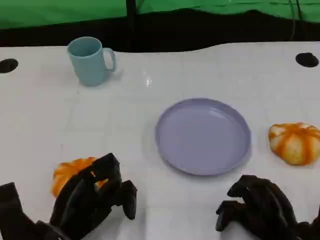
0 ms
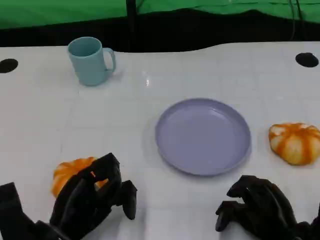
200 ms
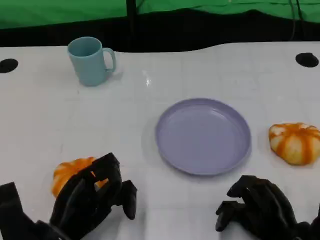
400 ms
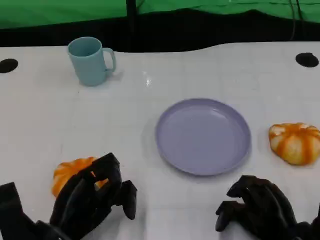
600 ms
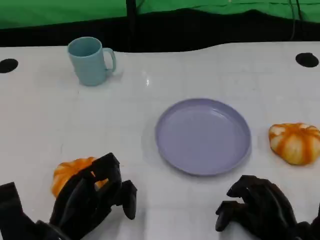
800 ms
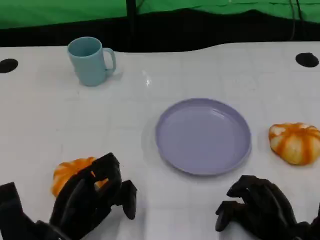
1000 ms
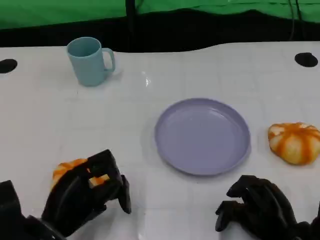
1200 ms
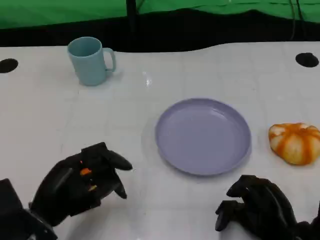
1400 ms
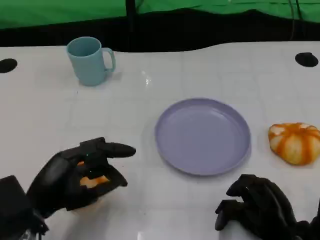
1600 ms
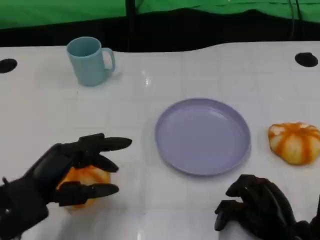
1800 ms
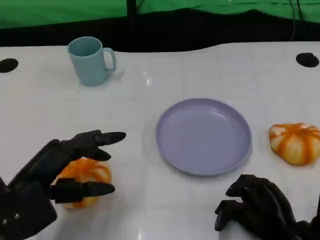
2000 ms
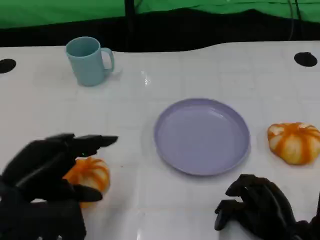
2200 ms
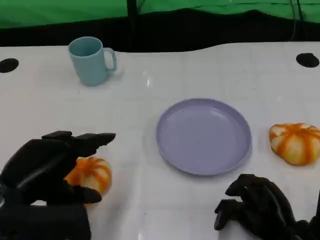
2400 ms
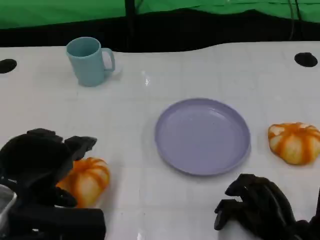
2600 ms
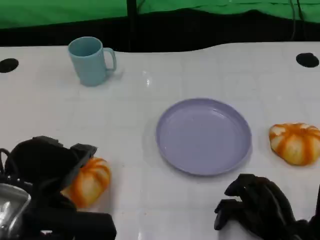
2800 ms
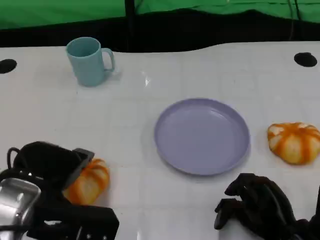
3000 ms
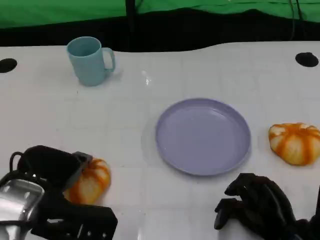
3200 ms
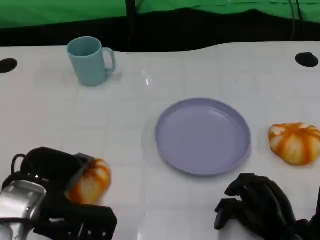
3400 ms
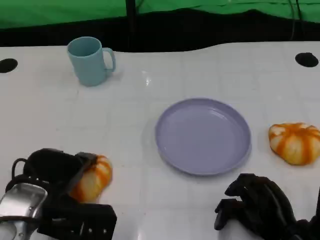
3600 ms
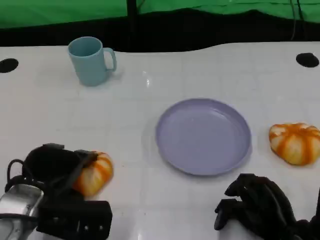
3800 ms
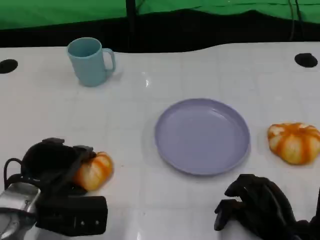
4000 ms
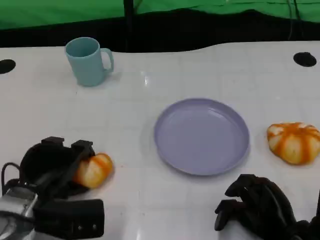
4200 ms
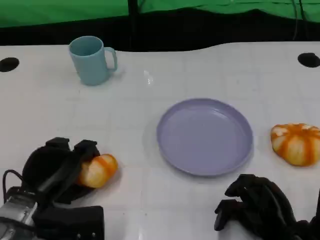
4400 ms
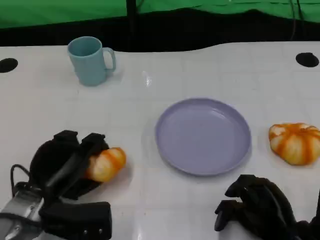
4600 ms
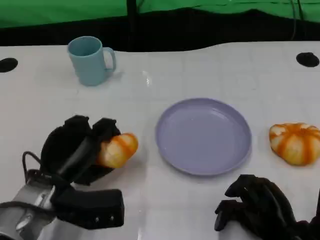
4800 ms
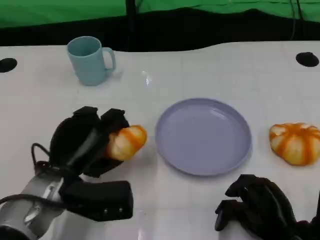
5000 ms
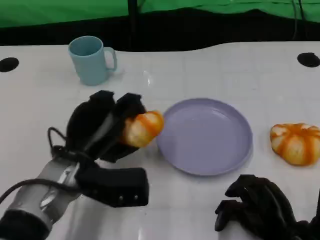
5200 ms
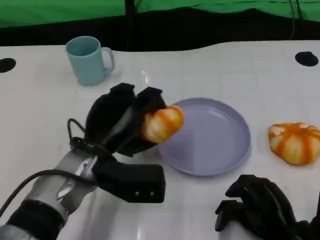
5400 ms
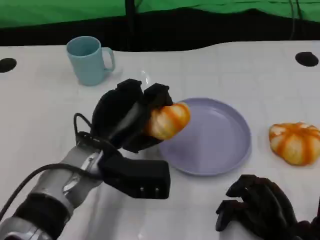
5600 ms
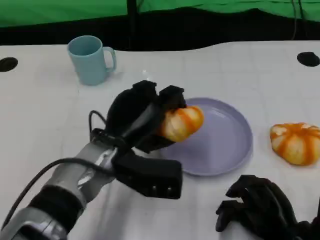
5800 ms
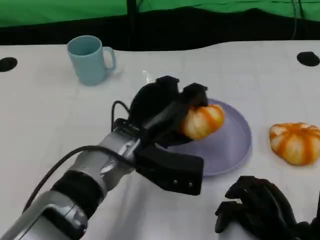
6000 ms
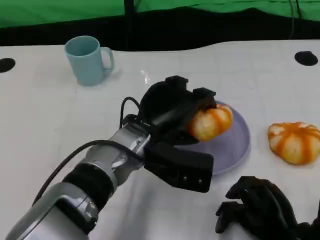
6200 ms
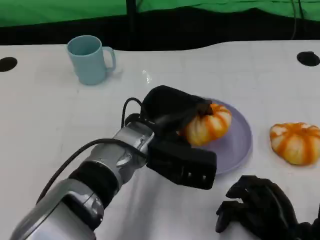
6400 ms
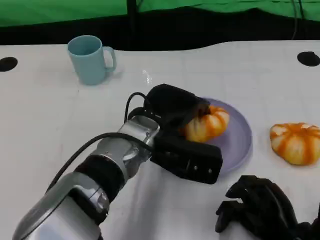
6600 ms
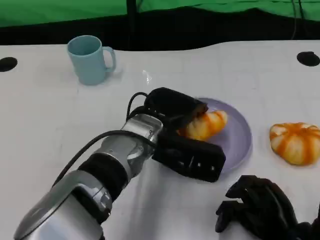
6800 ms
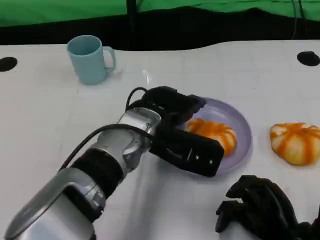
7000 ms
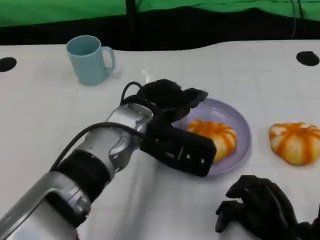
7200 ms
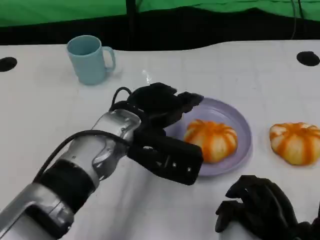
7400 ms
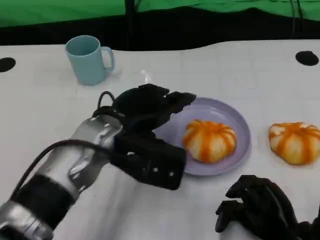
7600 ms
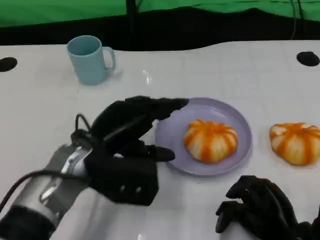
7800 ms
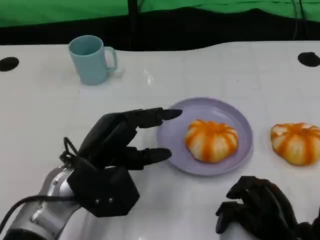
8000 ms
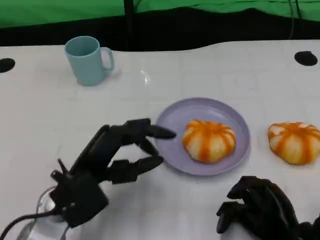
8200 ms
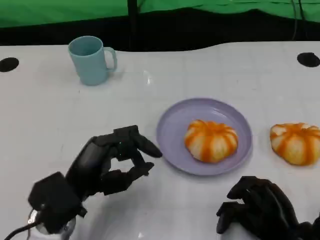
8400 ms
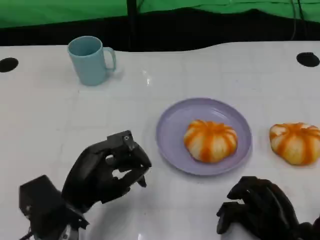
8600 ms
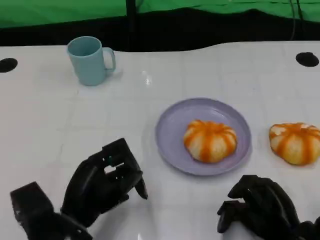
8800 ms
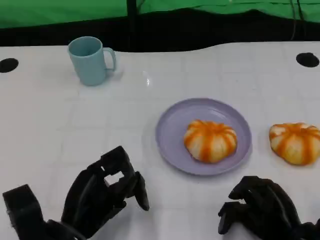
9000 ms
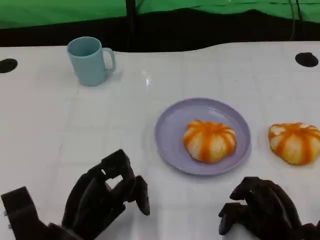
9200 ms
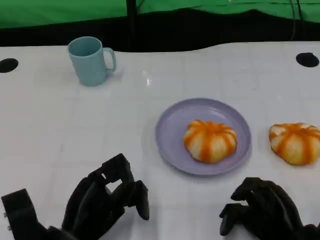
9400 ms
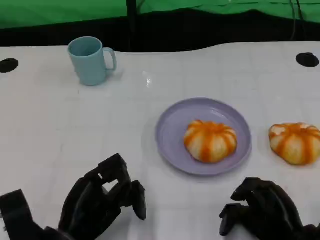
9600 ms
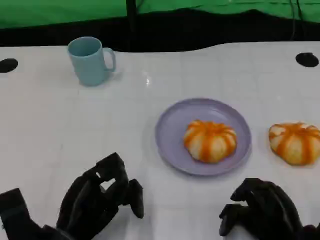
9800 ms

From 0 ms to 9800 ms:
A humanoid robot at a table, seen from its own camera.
Task of the whole recording: Grasp the bread from the table and place it into the plate.
From 1400 ms to 2800 ms: The left hand moves upward, about 10 cm.
From 2800 ms to 4200 ms: The left hand heads downward, covering roughly 10 cm.
From 4200 ms to 5600 ms: The left hand goes some 10 cm to the right and upward.
From 5600 ms to 7000 ms: The left hand is displaced to the right by roughly 5 cm.
From 7000 ms to 8400 ms: The left hand is displaced to the left, backward and downward by approximately 15 cm.
From 8400 ms to 9800 ms: The left hand shifts by some 5 cm.

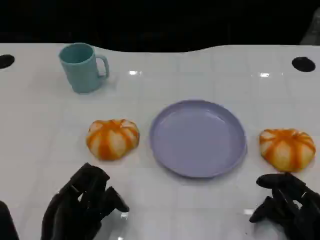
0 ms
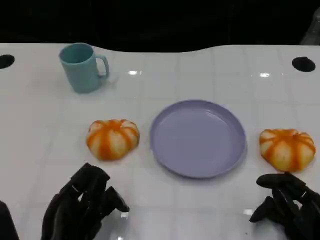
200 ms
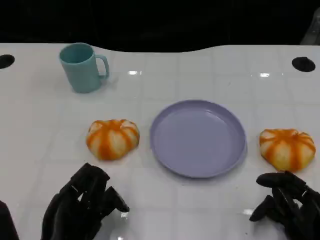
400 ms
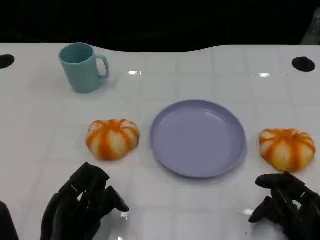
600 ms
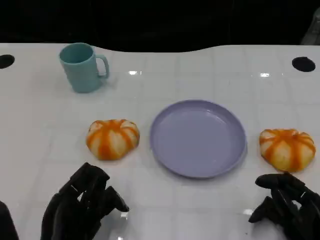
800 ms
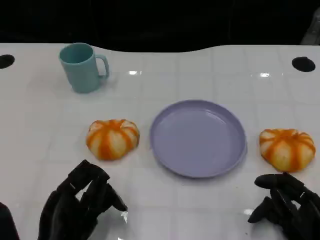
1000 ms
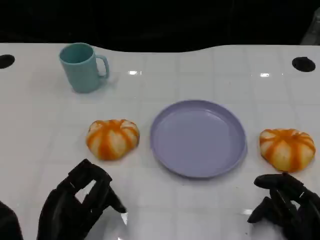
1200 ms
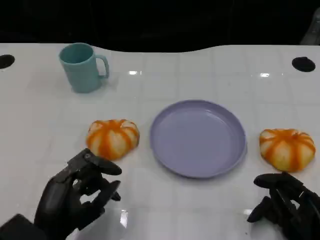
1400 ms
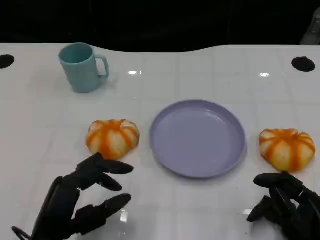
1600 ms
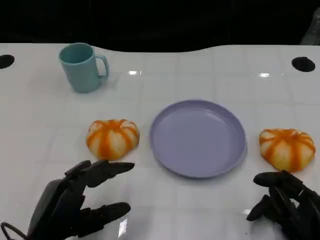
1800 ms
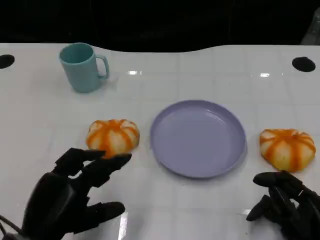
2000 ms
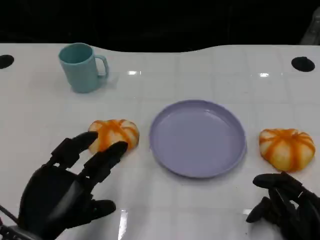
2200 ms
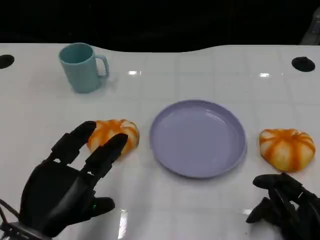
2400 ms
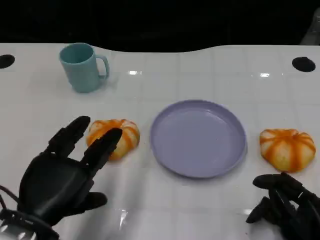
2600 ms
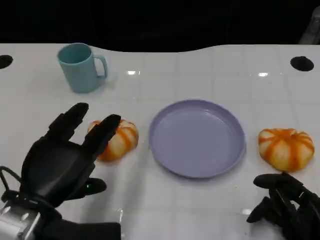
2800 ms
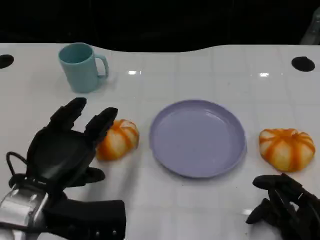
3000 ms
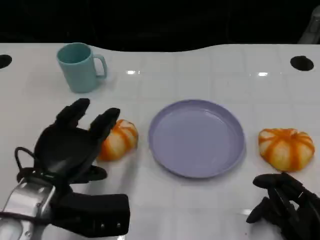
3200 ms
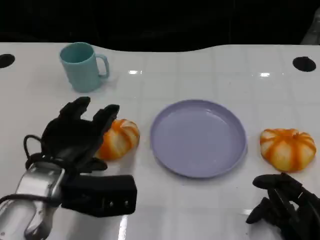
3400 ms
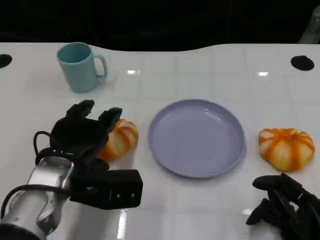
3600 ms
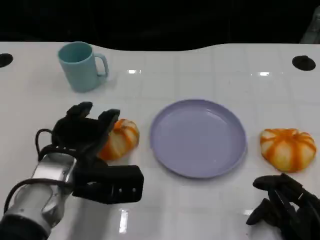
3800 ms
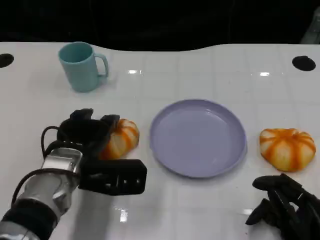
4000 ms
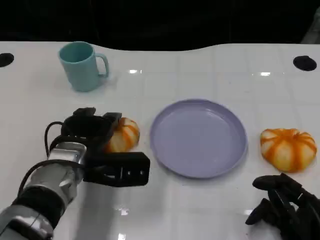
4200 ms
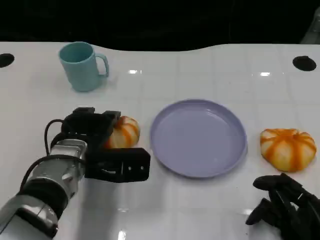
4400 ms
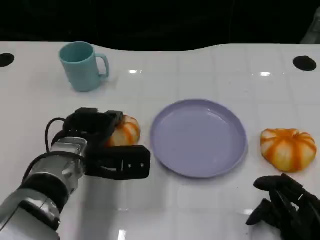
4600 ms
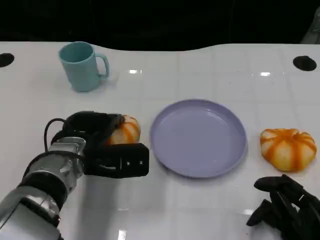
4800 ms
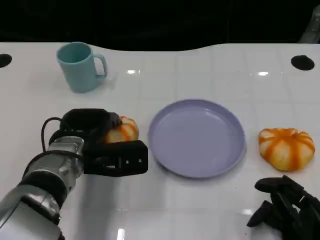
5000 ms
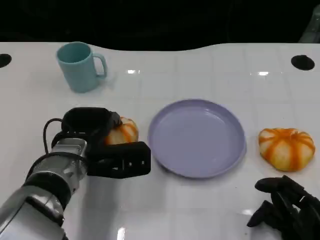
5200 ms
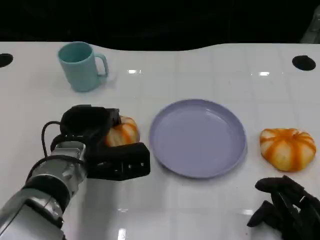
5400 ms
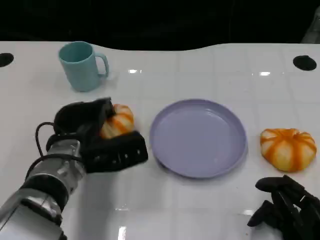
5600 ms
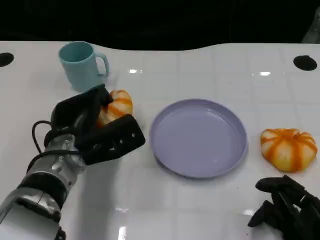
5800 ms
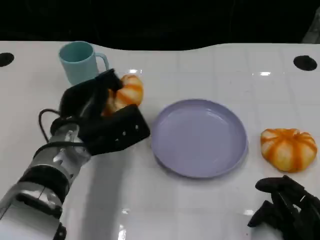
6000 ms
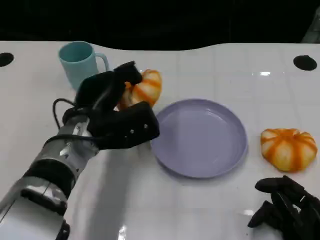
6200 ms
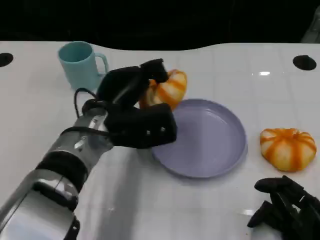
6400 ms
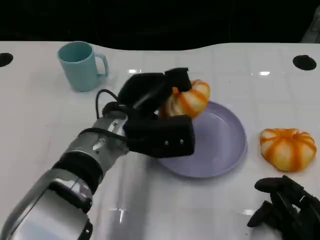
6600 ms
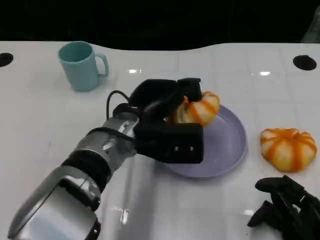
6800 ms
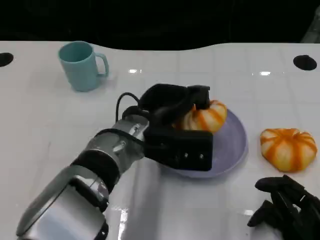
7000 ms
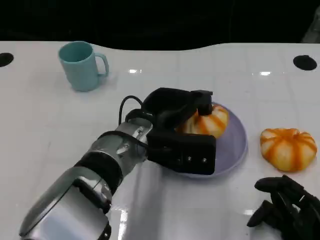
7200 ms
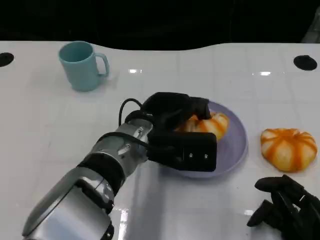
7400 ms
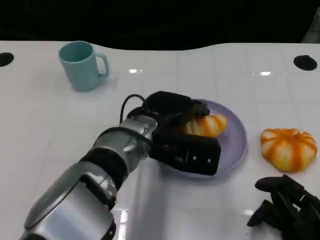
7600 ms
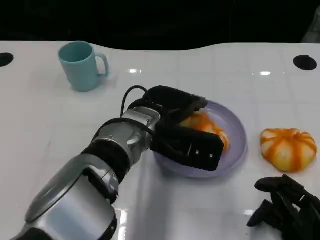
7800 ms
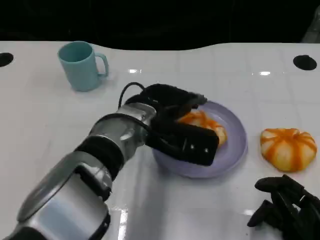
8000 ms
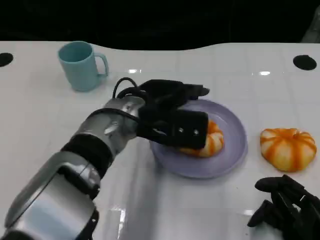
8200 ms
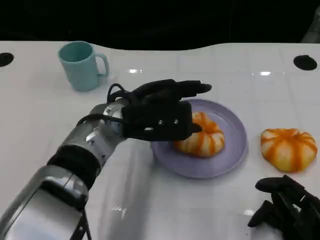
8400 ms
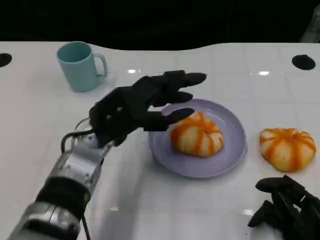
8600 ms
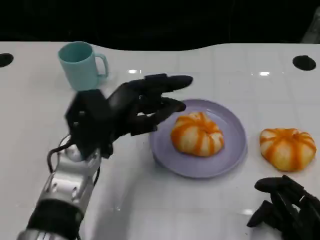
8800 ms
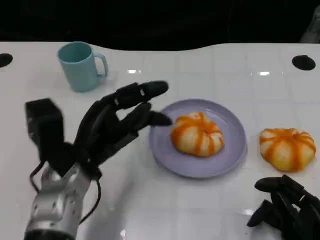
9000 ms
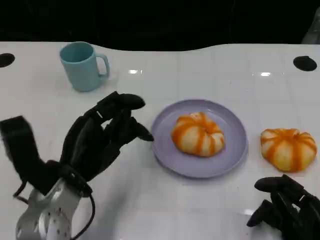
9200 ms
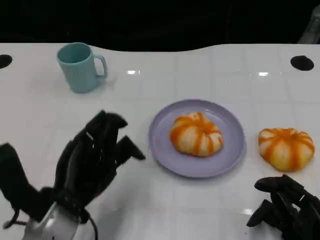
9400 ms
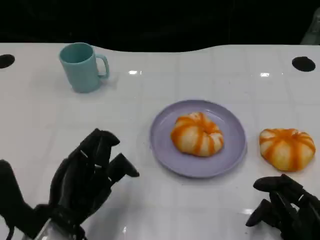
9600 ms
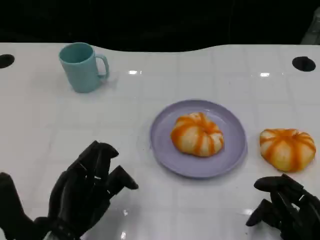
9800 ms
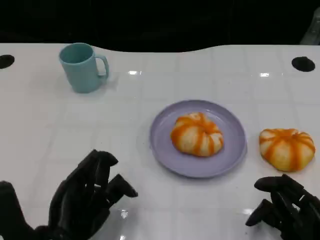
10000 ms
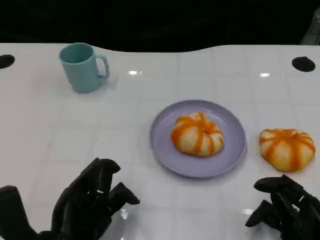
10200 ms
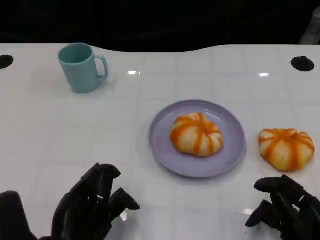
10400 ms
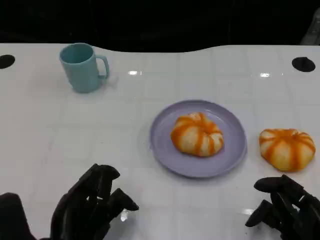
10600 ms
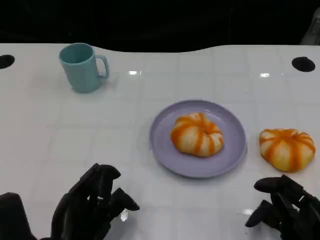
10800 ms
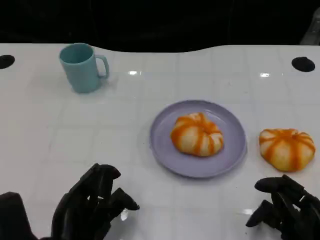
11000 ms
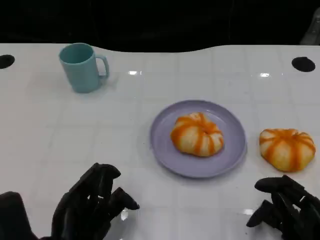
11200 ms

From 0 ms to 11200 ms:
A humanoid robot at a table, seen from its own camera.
Task of the whole recording: Grasp the bread from the table and place it into the plate.
From 1600 ms to 3200 ms: The left hand shifts some 5 cm forward.
From 3200 ms to 4800 ms: The left hand heads forward, covering some 10 cm.
From 4800 ms to 6400 ms: The left hand is displaced to the right by about 5 cm.
From 8000 ms to 9600 ms: The left hand travels backward, to the left and downward by approximately 20 cm.
From 9600 ms to 11200 ms: The hands stay close to where they were, moving slightly.

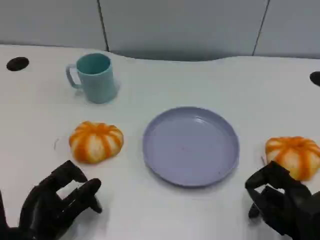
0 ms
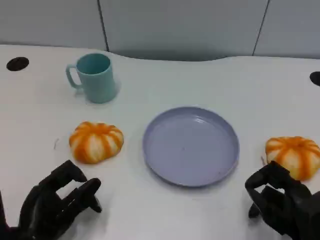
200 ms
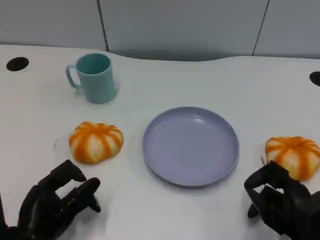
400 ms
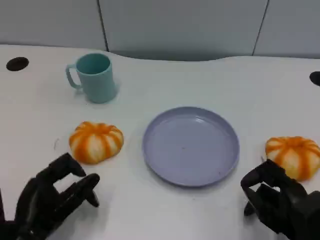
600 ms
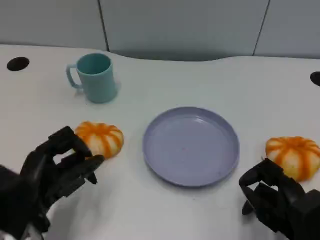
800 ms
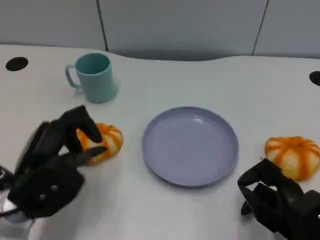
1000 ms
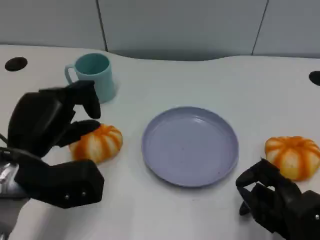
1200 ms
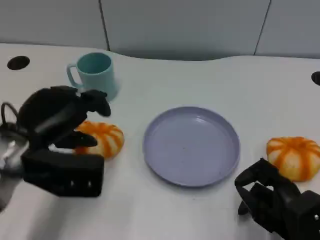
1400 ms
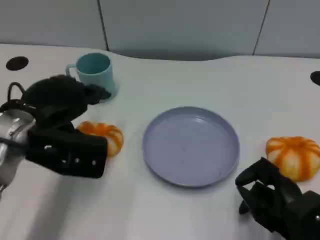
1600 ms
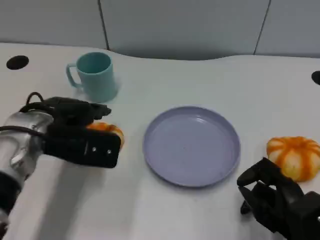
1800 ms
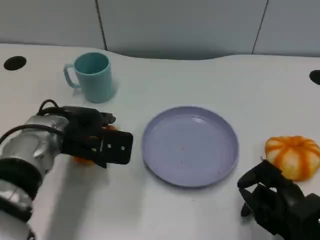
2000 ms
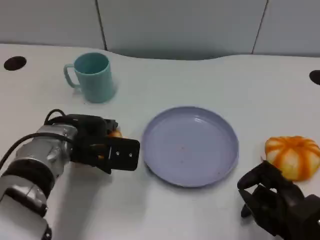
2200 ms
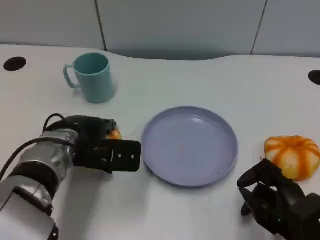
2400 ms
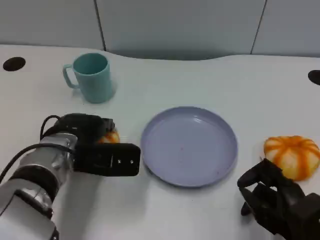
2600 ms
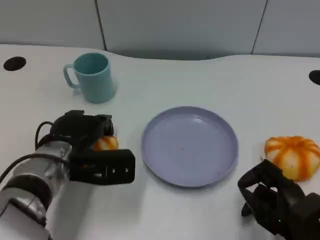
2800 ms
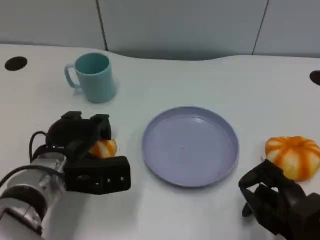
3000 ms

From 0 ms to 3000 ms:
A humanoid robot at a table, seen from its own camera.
Task of the whole recording: Grasp the bread from the table and place it into the plate.
From 0 ms to 1600 ms: The left hand is displaced upward and forward by some 15 cm.
From 1600 ms to 3000 ms: The left hand is displaced downward by some 10 cm.
